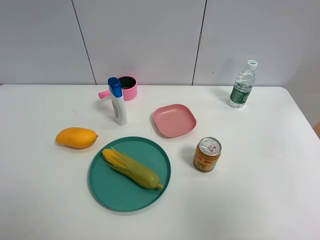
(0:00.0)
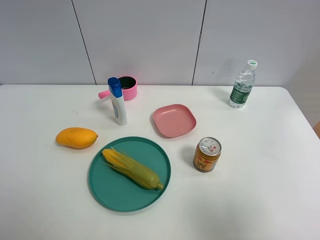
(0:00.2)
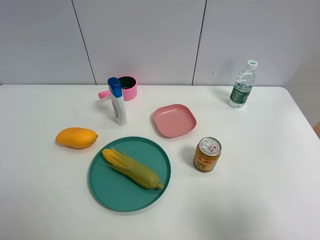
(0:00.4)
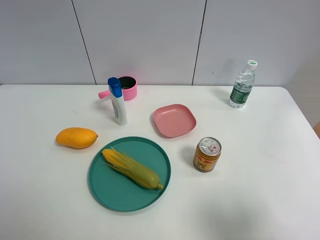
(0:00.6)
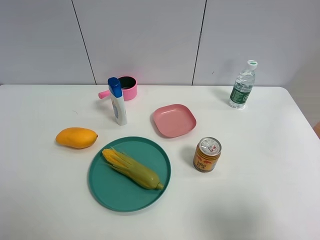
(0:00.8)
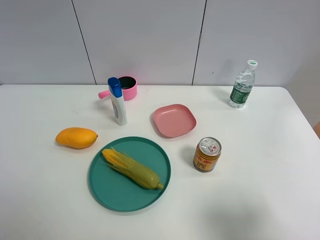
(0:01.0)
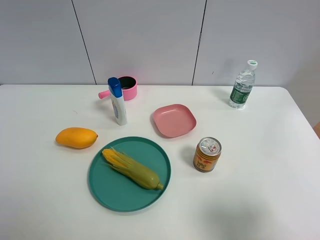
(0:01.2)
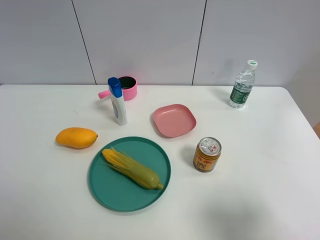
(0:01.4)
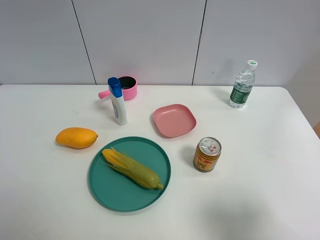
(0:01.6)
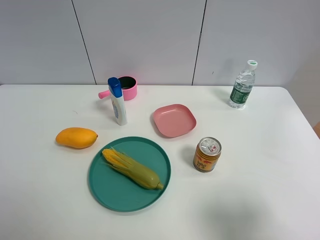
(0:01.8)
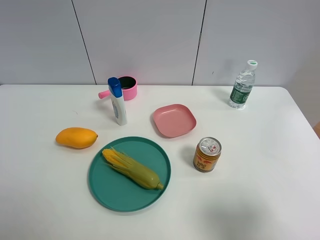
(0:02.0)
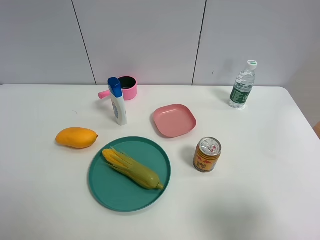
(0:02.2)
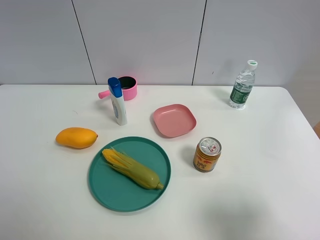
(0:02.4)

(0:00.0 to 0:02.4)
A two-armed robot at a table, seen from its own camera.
Task of the whole recording: the gripper move the object.
0:00.0 - 0:01.2: The right gripper travels downward by approximately 10 cm.
0:01.2 - 0:02.4: Both grippers stay about where they are.

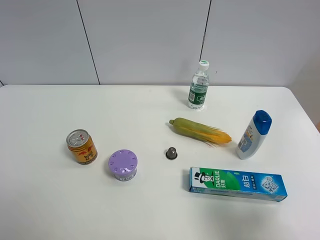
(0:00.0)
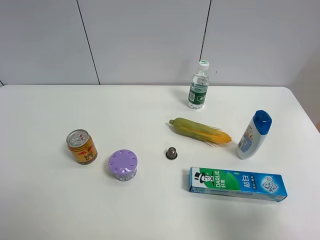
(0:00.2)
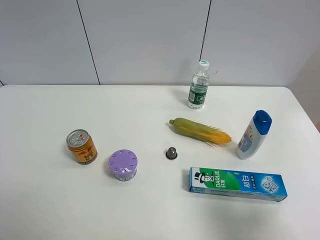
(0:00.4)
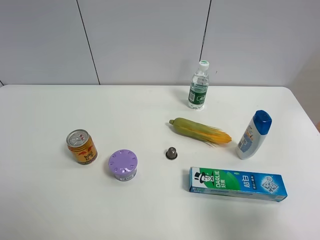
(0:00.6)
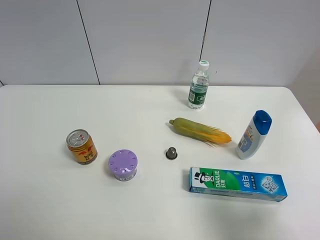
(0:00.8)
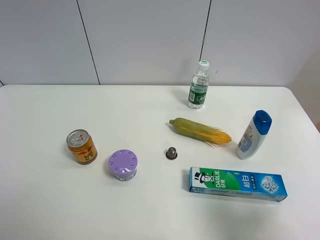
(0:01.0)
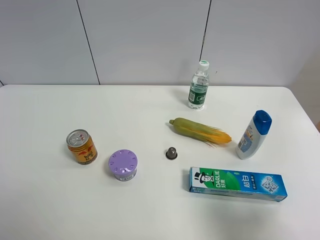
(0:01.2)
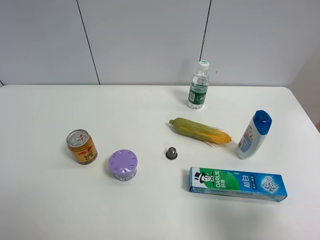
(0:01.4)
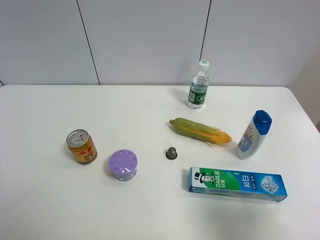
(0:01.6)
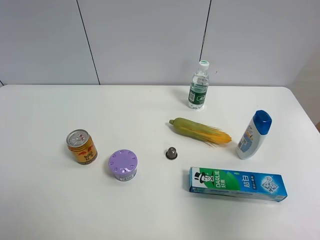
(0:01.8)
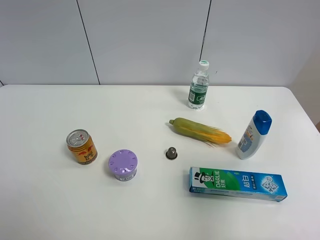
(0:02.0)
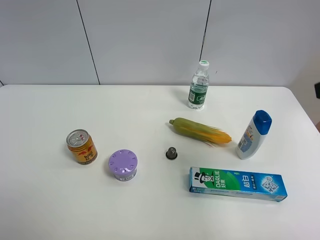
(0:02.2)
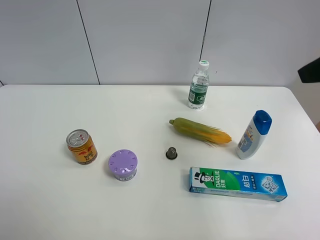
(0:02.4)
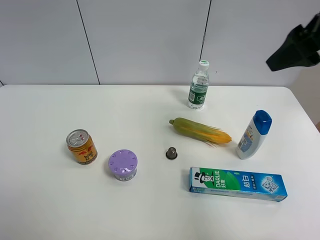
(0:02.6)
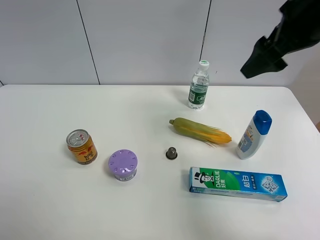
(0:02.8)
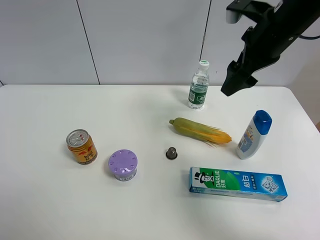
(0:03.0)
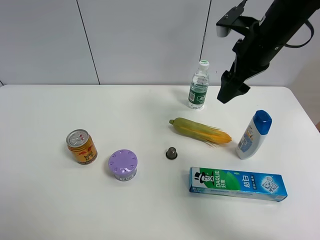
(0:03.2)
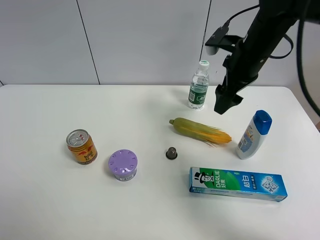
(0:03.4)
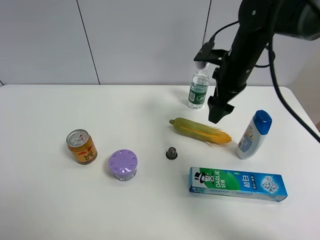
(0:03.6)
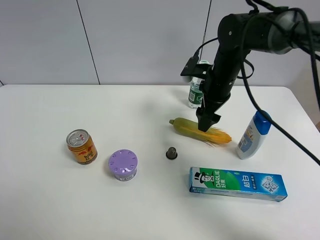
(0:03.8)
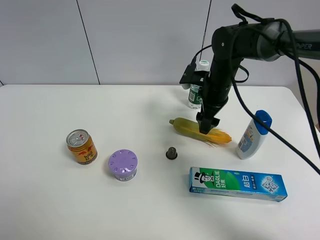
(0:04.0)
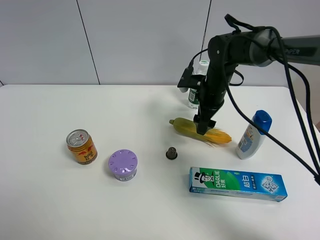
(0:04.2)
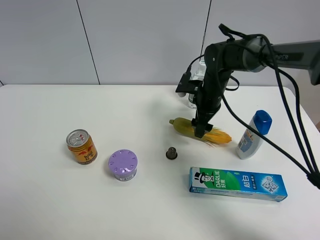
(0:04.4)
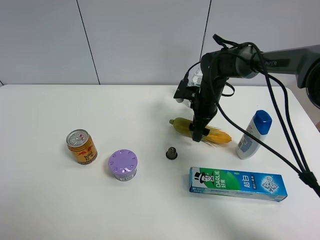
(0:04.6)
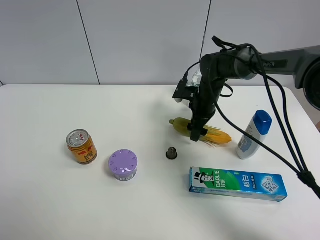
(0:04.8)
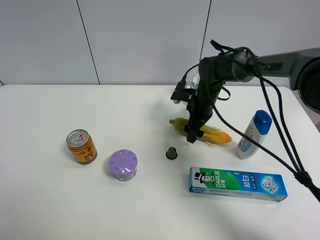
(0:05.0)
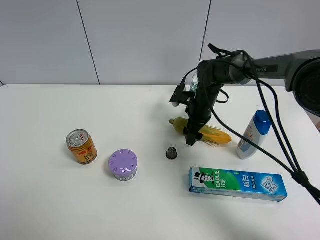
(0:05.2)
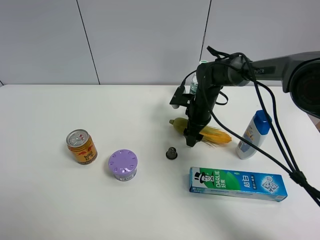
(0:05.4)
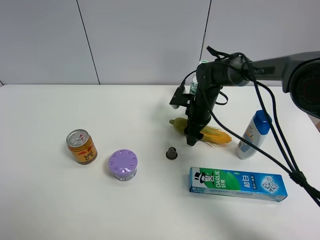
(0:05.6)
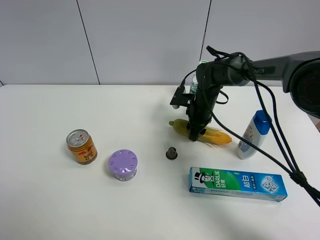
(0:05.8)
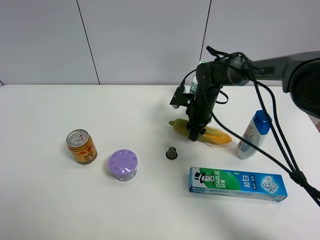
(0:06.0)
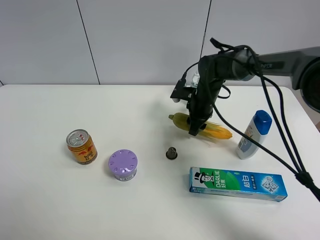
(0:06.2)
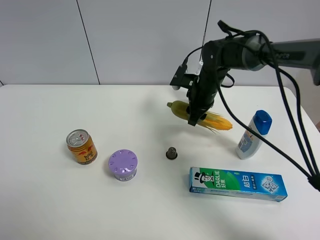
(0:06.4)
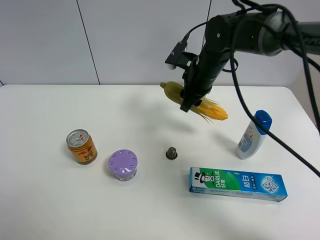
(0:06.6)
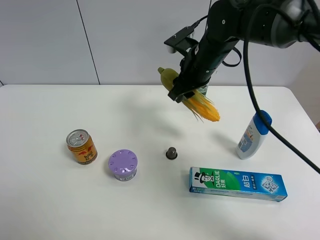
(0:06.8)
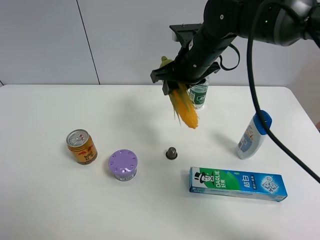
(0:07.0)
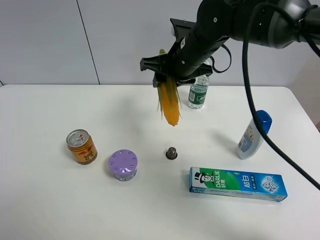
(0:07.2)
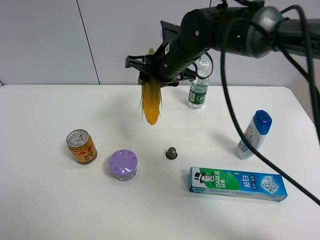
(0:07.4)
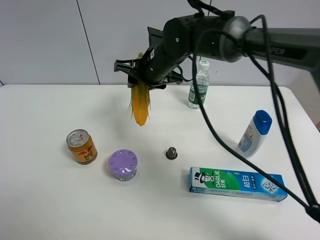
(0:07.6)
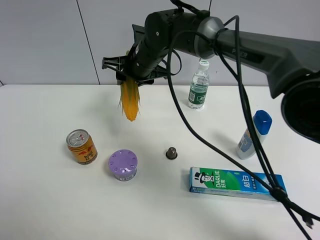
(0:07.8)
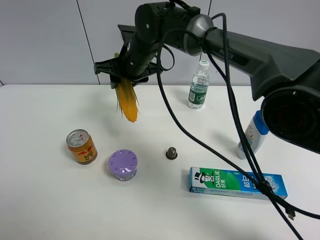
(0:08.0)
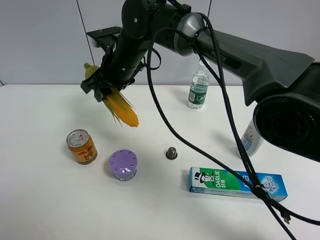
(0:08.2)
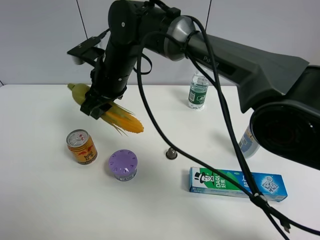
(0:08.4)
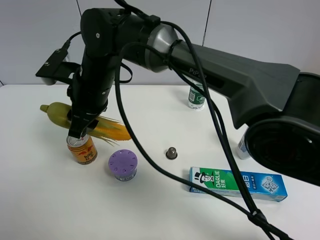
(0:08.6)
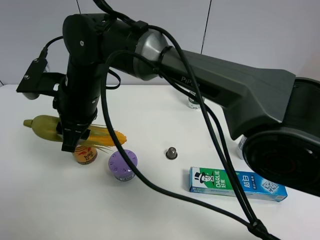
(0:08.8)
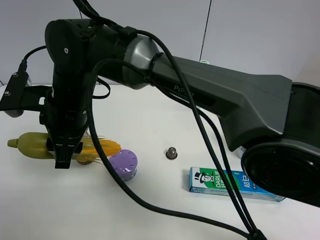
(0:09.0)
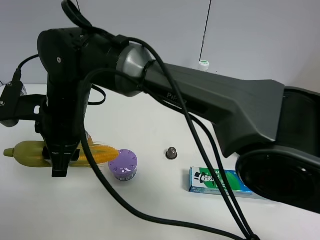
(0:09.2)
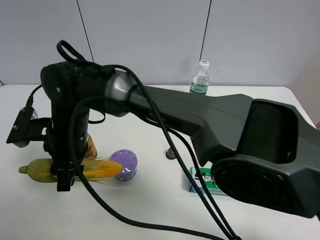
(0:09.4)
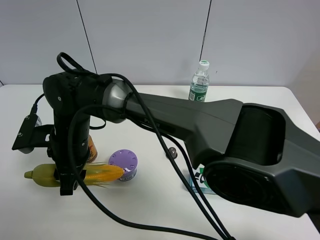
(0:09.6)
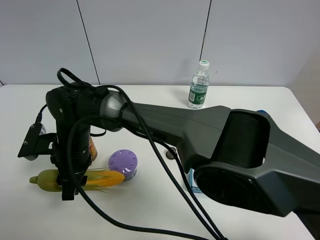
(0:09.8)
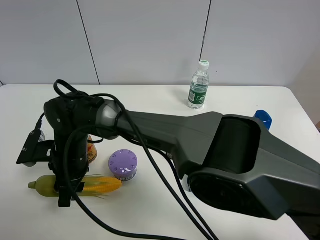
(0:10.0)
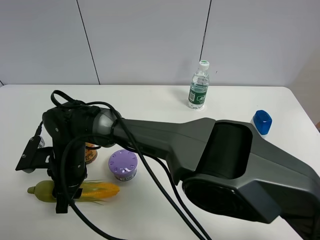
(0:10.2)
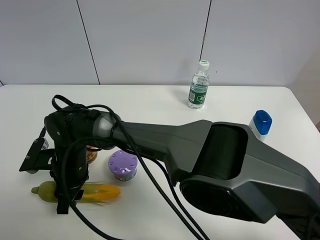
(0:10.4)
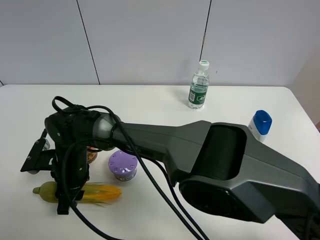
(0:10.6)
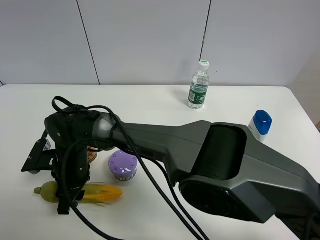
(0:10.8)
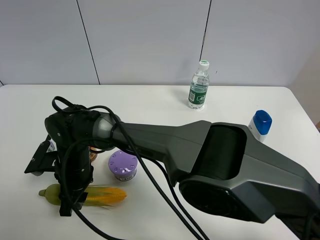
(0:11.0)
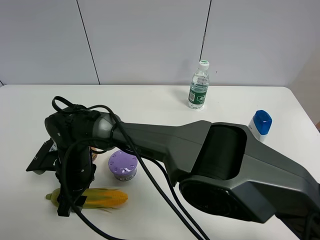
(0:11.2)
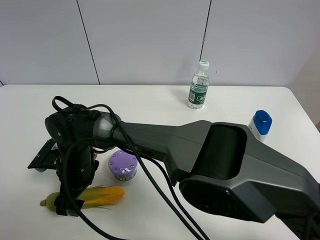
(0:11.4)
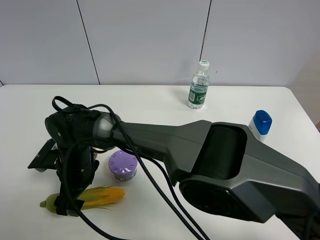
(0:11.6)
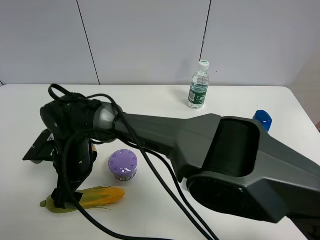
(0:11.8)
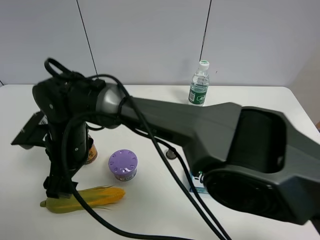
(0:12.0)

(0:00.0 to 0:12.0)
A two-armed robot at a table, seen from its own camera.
Task of the whole recording: the gripper move the object.
Step, 0:00.0 - 0:05.8: Grasp the corn with the right gripper.
Step, 0:06.0 - 0:11.2: Place the corn on the table with the right gripper.
0:01.6 - 0:03.0: The right gripper goes roughly 30 cm forward.
0:03.0 - 0:04.4: The right gripper is displaced downward by about 20 cm.
0:04.4 - 0:06.0: The right gripper closes its fingers.
0:06.0 - 0:07.6: The right gripper is displaced upward and to the left by some 20 cm.
0:07.6 - 0:09.0: The right gripper heads to the left and backward, covering roughly 20 cm.
0:09.0 - 0:10.4: The right gripper heads downward, covering some 15 cm.
0:10.4 - 0:12.0: The right gripper moves upward, roughly 10 cm, and opens its fingers.

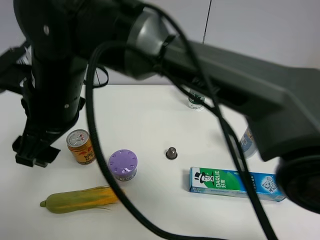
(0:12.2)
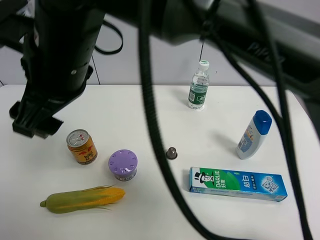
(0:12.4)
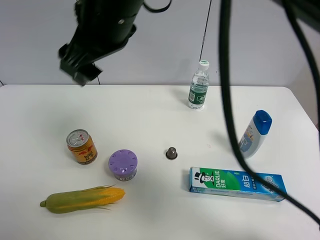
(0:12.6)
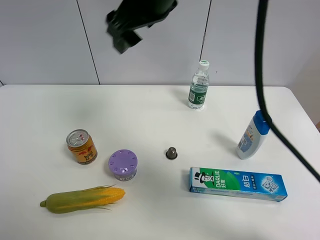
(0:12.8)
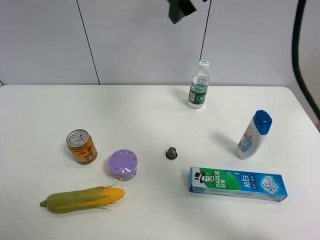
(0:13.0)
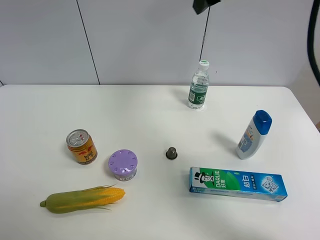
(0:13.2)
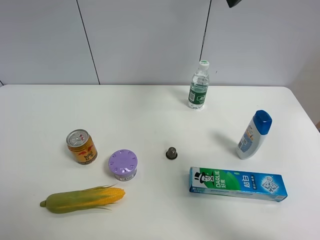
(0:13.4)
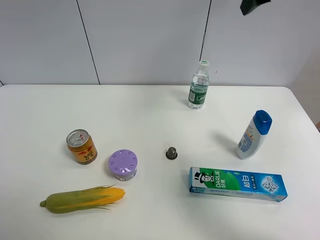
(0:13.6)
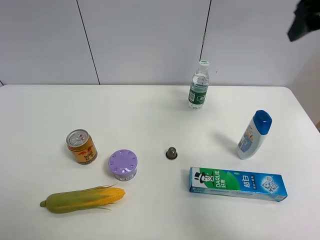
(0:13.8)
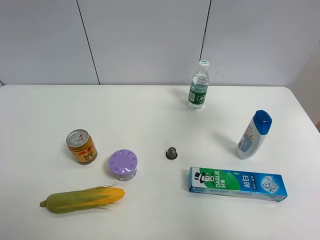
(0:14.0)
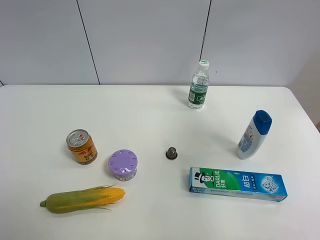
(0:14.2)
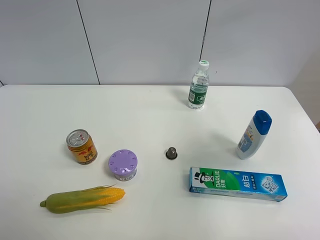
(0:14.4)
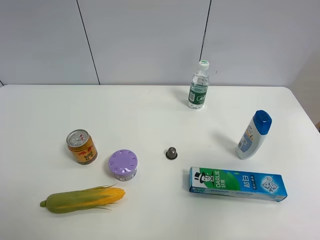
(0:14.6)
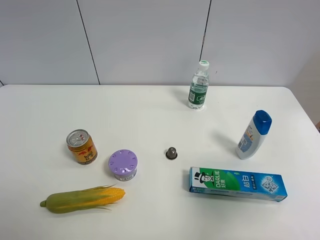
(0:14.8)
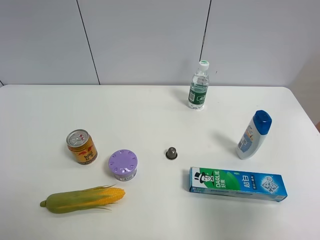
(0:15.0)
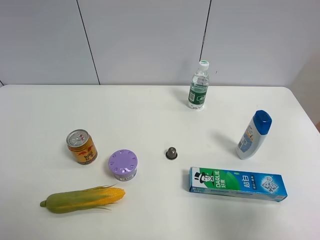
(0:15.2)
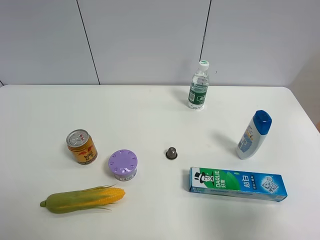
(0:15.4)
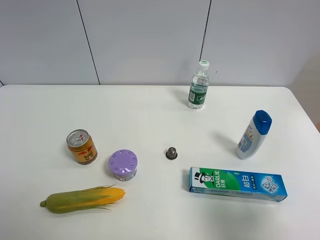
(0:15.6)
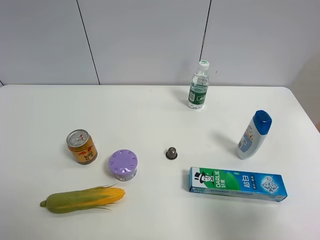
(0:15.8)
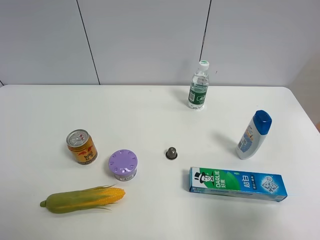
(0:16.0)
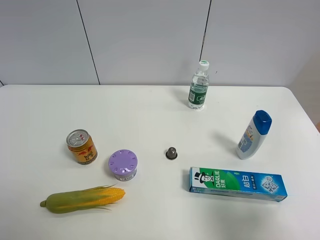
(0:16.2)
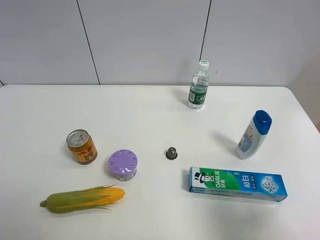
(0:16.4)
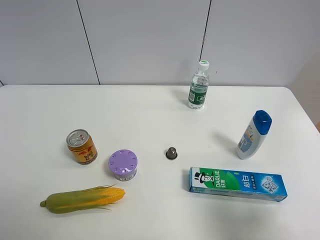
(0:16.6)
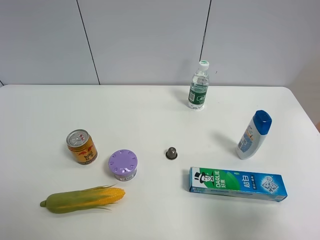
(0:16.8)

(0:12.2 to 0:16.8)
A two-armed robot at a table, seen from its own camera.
Task of the whole recording: the gripper move the object.
0:12.2 - 0:13.8: The right gripper is displaced to the right by roughly 40 cm.
0:13.8 - 0:15.2: The right gripper goes roughly 35 cm backward and downward.
0:15.2 - 0:16.8: Both grippers stay put.

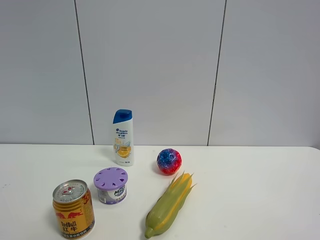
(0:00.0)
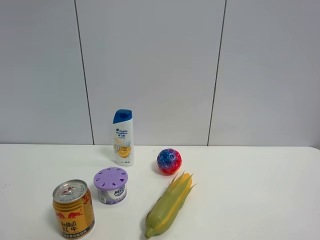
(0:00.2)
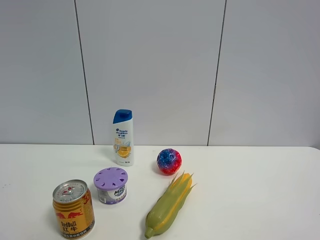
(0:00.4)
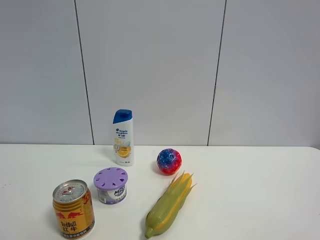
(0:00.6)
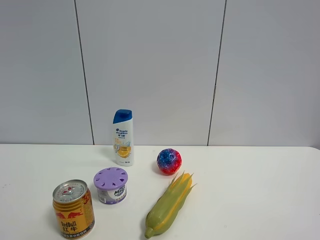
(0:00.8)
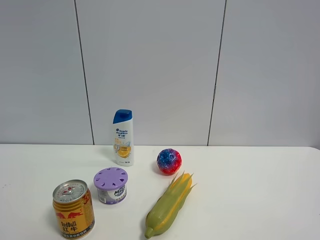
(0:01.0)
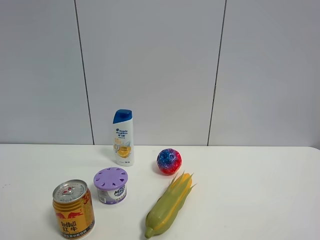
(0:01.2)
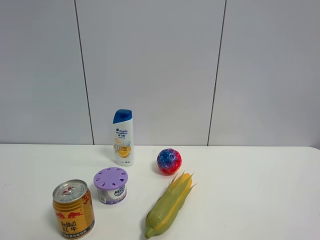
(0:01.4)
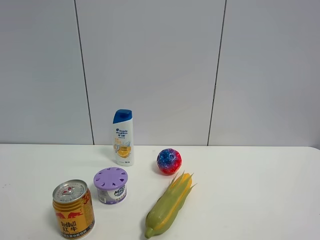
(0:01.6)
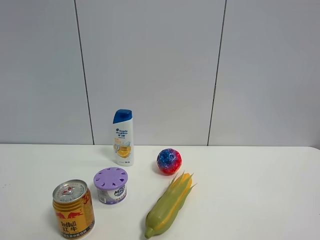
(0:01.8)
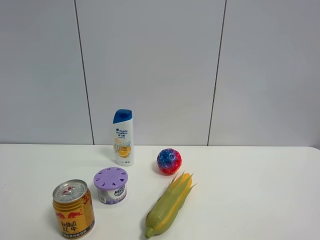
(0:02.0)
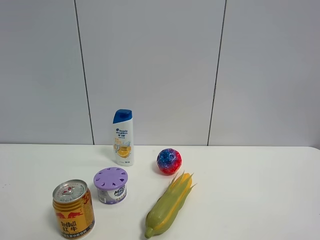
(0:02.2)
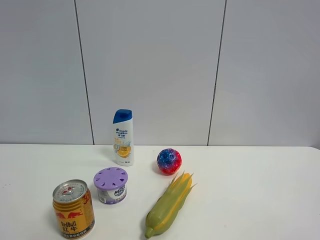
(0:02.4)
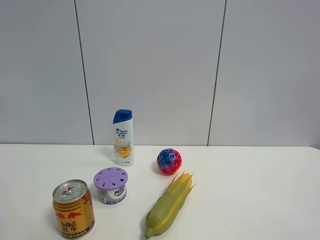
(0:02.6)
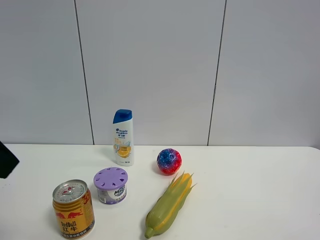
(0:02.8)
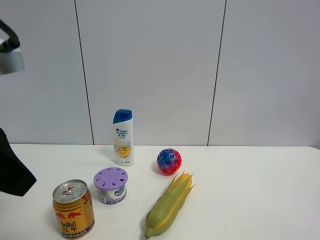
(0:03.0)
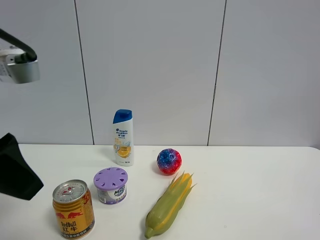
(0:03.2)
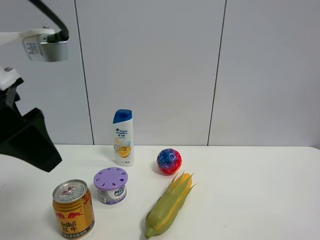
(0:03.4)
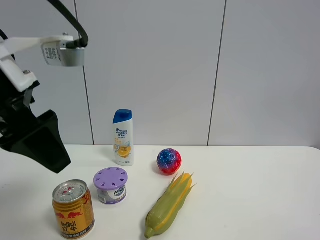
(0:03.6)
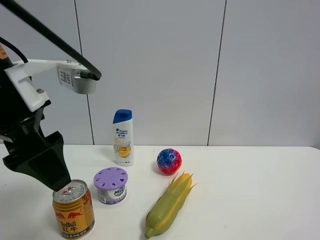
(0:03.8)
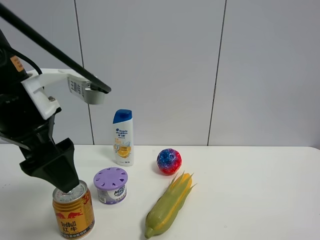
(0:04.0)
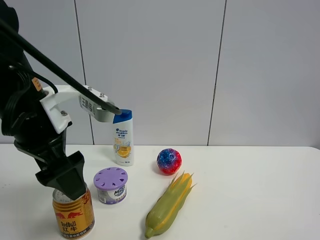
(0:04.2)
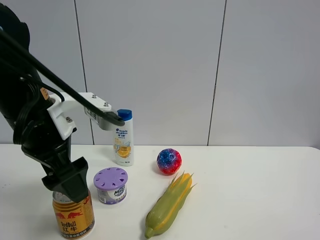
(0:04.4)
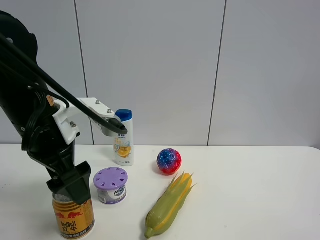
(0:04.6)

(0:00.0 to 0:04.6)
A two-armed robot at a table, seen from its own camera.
Task of the whole recording: the gripper move the object.
0:01.6 - 0:03.0: The left gripper heads forward, to the right and downward, covering roughly 10 cm.
0:03.0 - 0:04.6: The left gripper shifts some 15 cm forward, to the right and downward.
